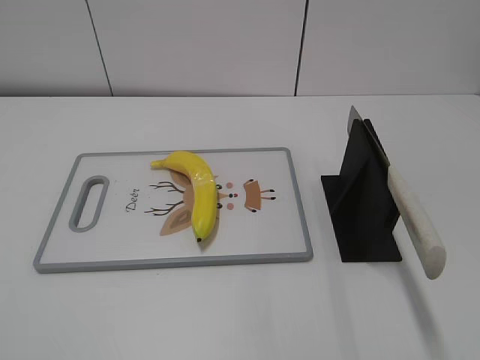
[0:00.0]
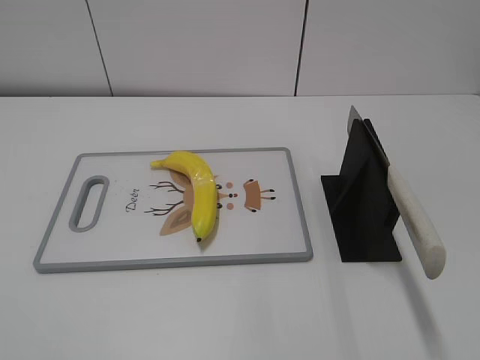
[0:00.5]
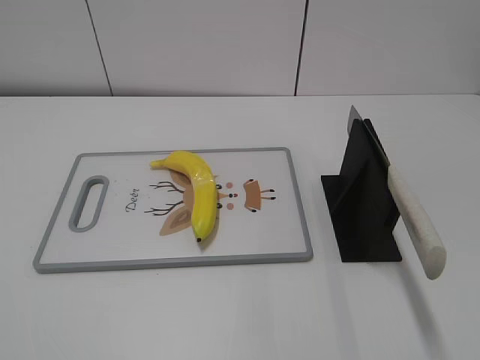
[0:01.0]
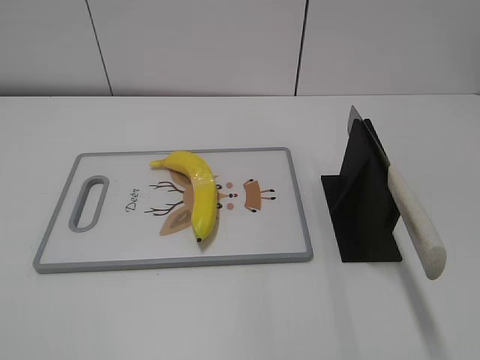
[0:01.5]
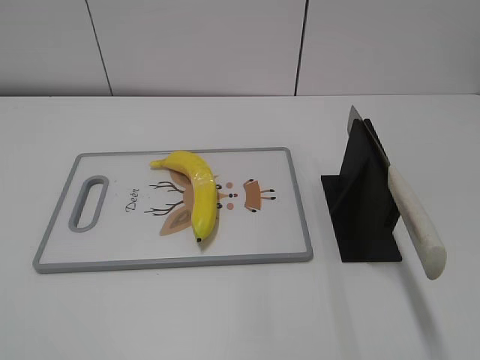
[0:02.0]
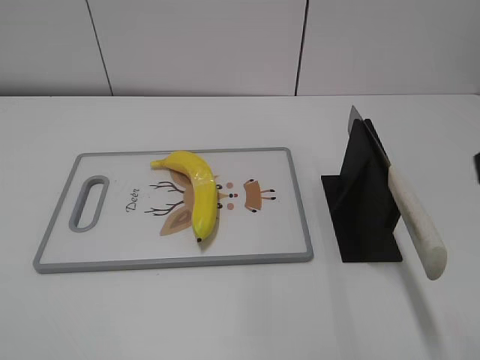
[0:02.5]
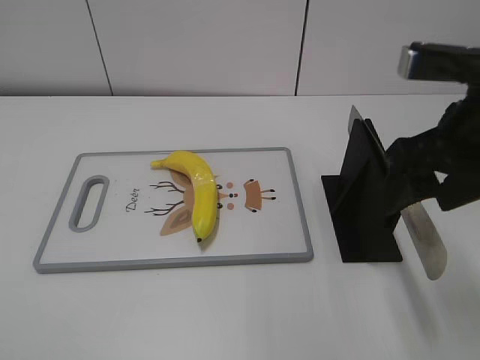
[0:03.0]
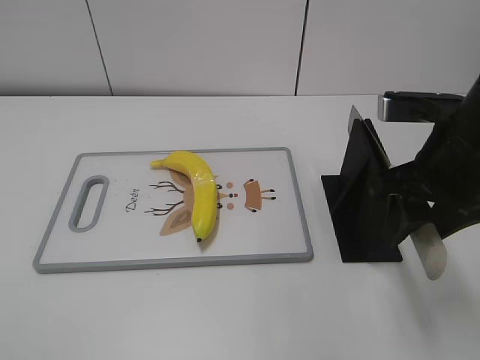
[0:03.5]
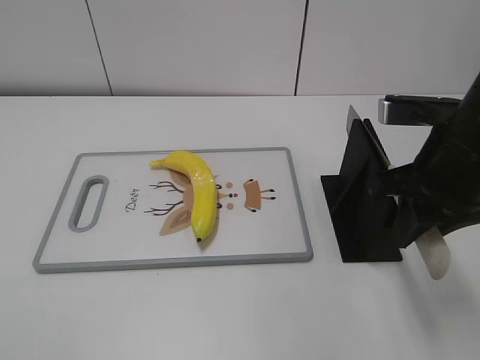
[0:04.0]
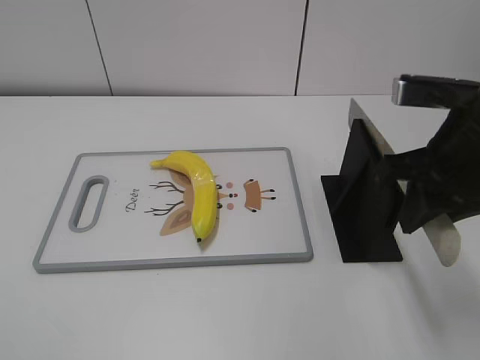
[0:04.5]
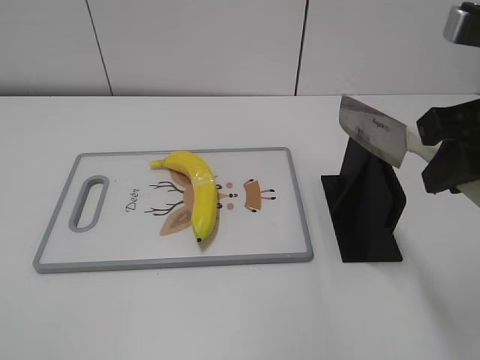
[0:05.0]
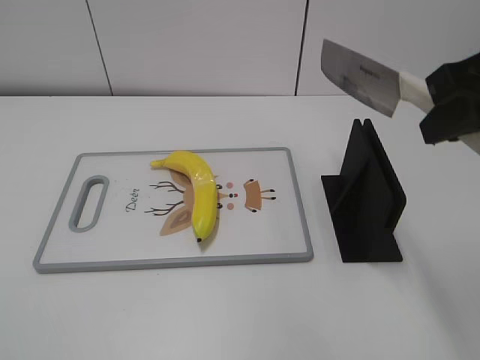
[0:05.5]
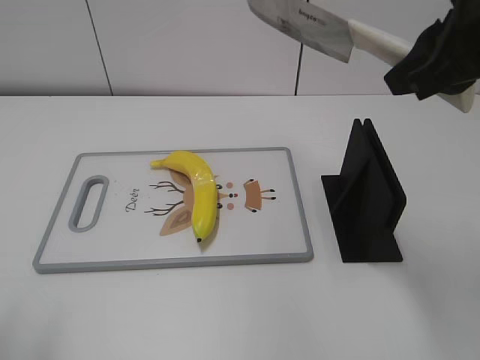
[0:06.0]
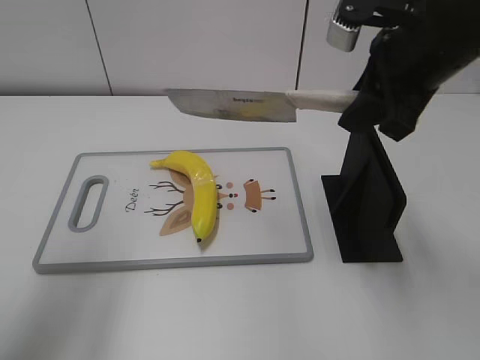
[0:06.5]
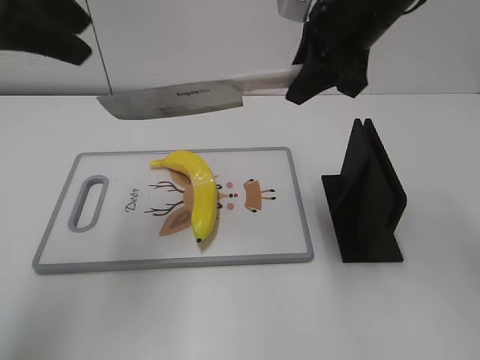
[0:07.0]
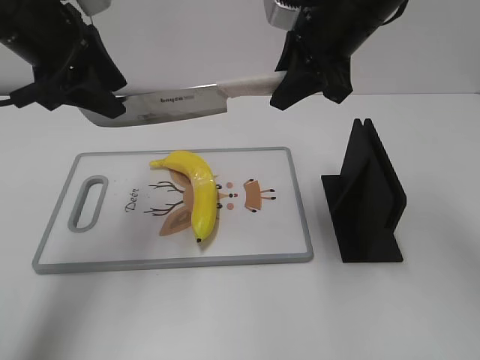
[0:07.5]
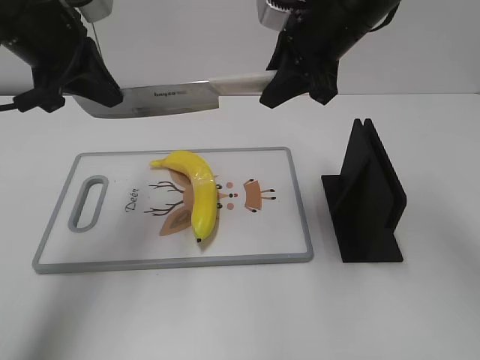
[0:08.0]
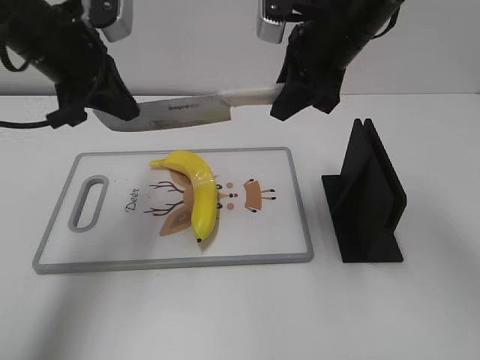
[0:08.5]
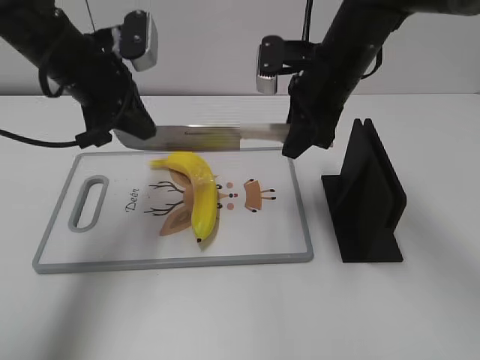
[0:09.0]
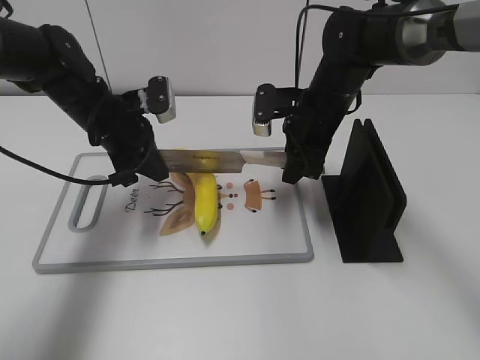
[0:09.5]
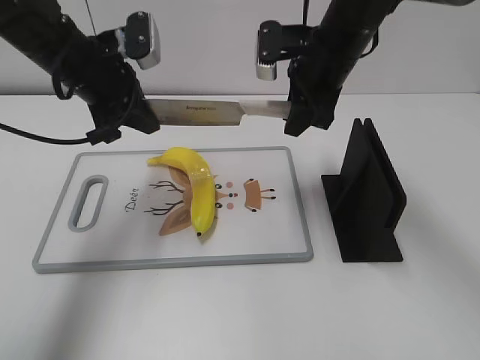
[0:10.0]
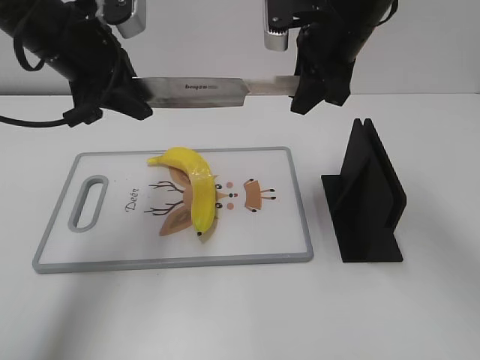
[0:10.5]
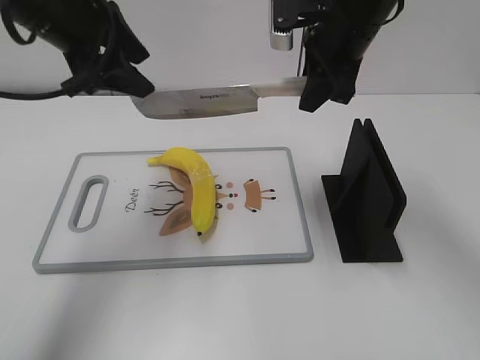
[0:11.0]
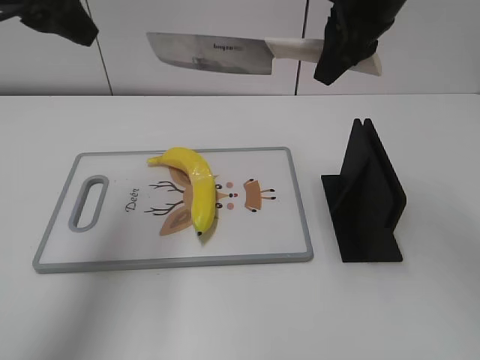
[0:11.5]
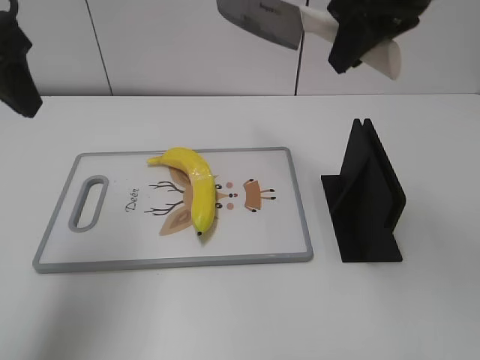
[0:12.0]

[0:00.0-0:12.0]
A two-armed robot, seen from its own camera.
Task of the whole recording: cut plastic banana.
Step, 0:00.0 to 0:05.0: Grab the knife handle with your right hand.
Step, 0:05.5 to 0:09.5: Lift the knife with your right hand.
Step, 0:10.0 to 0:11.5: Cut the banana with your right hand.
0:02.0 to 0:04.0: The right gripper moves forward, downward and to the left, approximately 25 cm, and closes up.
0:04.0 to 0:06.0: The right gripper is displaced upward by roughly 10 cm; the left gripper moves forward and upward, approximately 15 cm.
0:06.0 to 0:08.0: The left gripper shifts approximately 25 cm forward, and closes its fingers; the right gripper moves forward, to the left and downward, roughly 15 cm.
0:08.0 to 0:10.0: The left gripper shifts roughly 5 cm downward.
0:10.0 to 0:12.0: The right gripper goes about 15 cm upward and backward. Meanwhile the left gripper travels backward, upward and to the left by some 15 cm, and opens up.

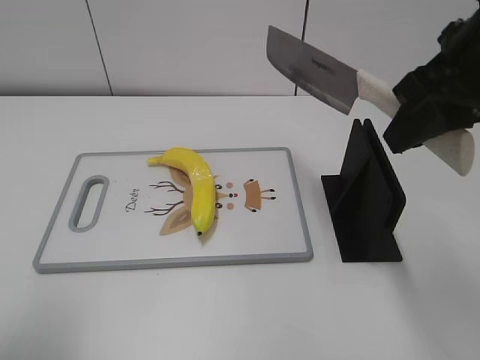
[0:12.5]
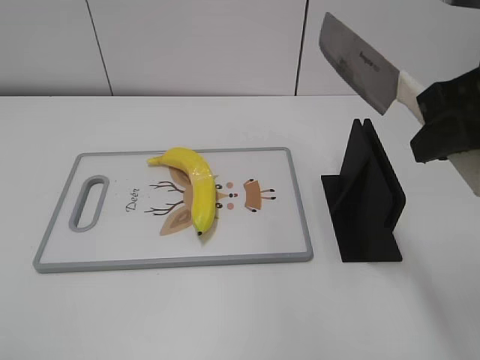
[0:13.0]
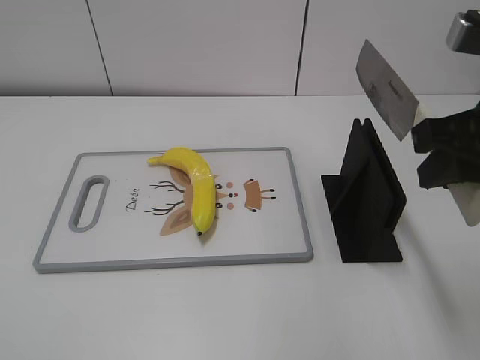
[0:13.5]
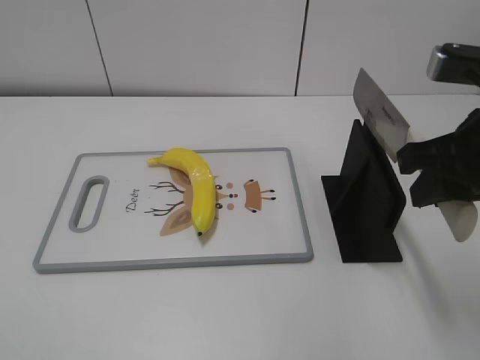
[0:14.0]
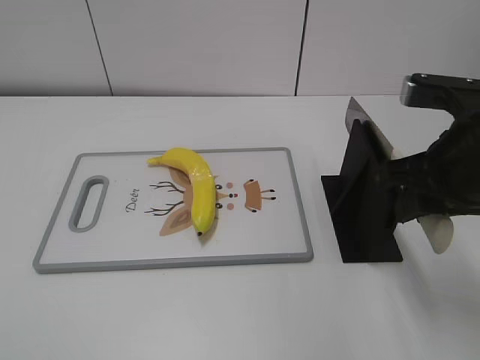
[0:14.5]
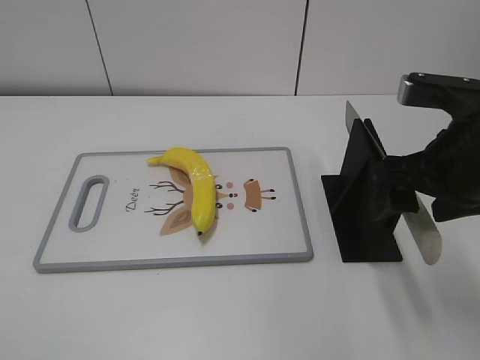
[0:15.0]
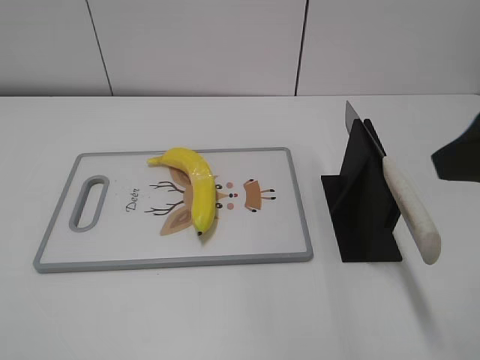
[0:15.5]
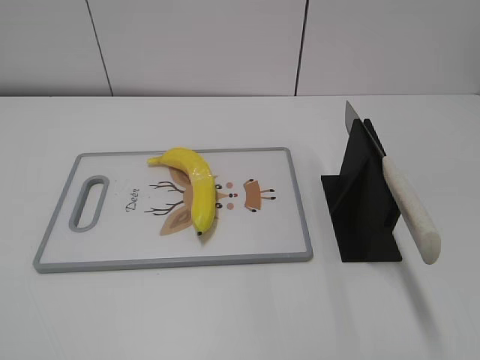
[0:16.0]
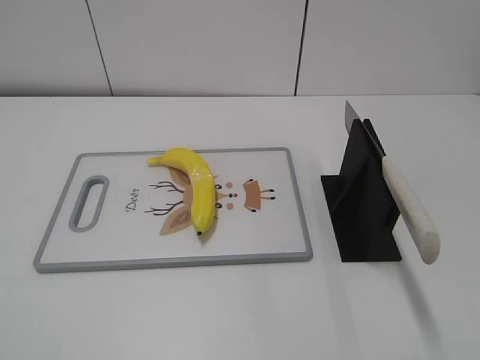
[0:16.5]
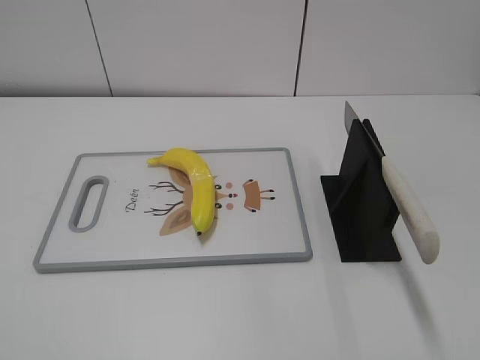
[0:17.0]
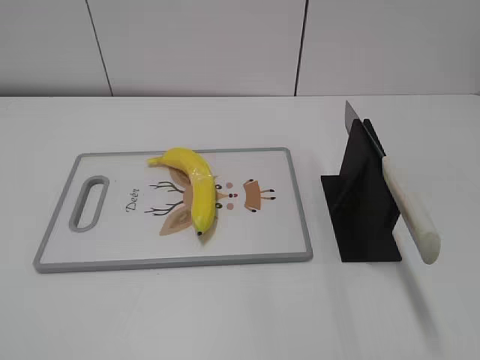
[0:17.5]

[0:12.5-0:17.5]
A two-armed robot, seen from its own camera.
Task of the whole recording: cut plastic banana.
Step, 0:13.5 to 0:17.5: Place the knife on the storage rack with your right hand.
0:12.5 to 0:15.0: The right gripper moves downward, approximately 10 cm, and opens its fingers; the left gripper moves backward, approximately 15 cm.
0:15.0 to 0:17.5: The right gripper is displaced backward by about 25 cm.
